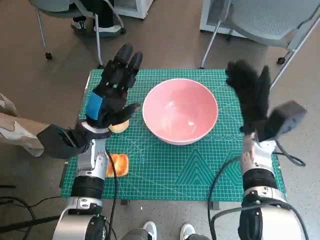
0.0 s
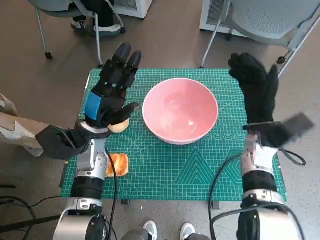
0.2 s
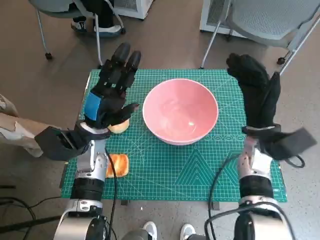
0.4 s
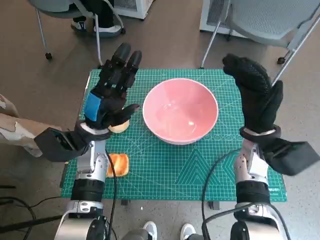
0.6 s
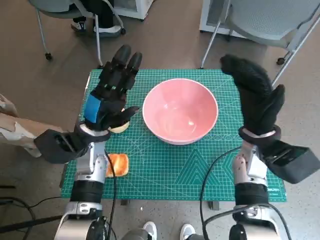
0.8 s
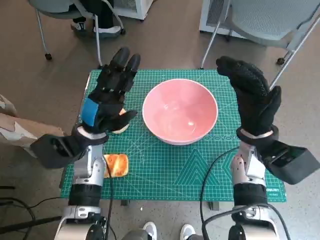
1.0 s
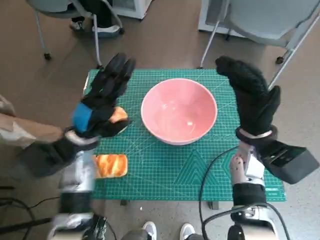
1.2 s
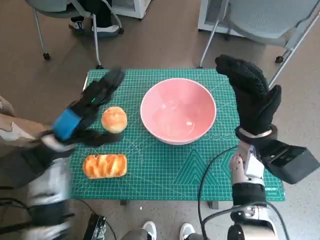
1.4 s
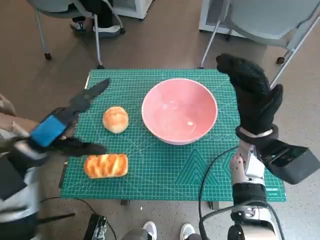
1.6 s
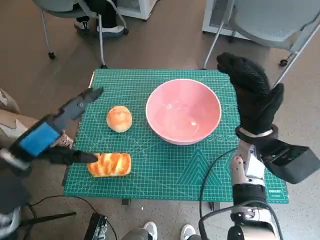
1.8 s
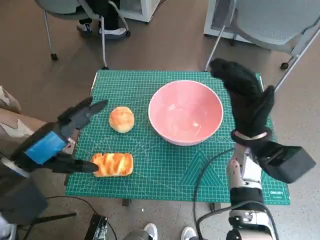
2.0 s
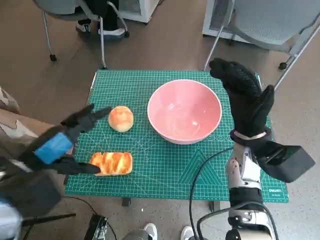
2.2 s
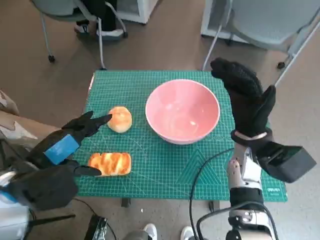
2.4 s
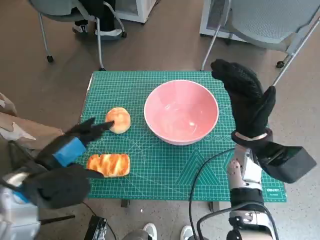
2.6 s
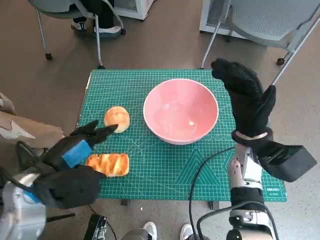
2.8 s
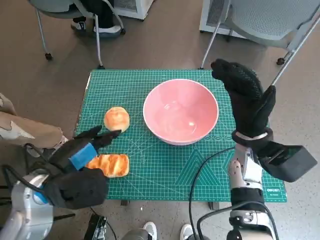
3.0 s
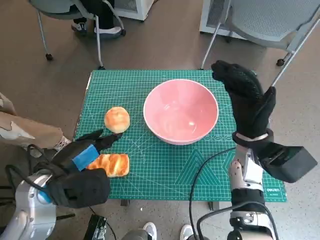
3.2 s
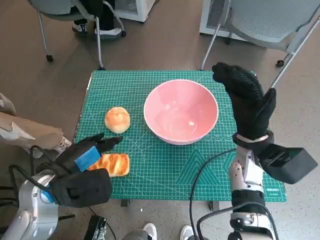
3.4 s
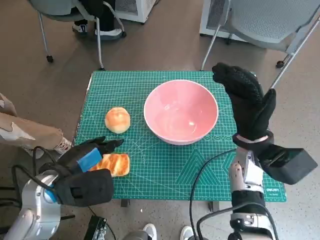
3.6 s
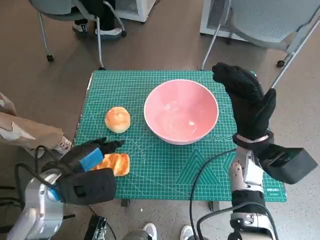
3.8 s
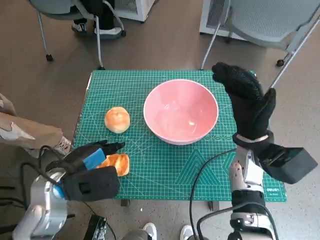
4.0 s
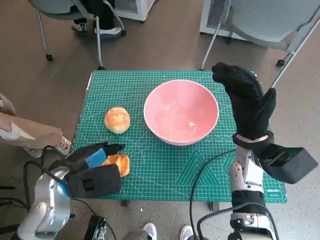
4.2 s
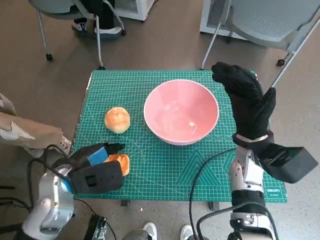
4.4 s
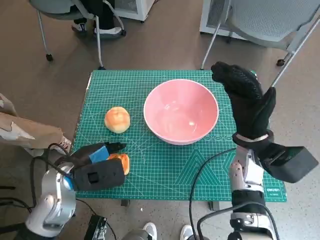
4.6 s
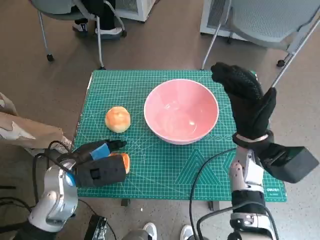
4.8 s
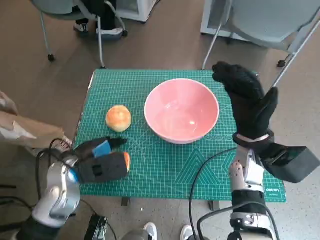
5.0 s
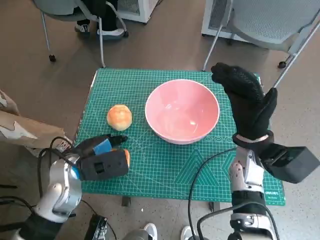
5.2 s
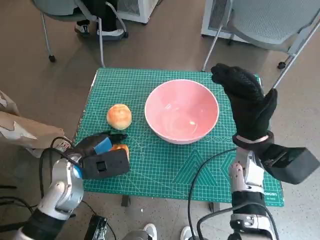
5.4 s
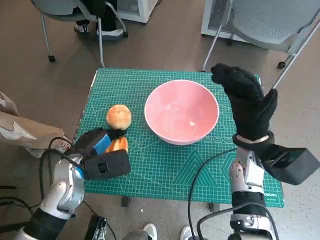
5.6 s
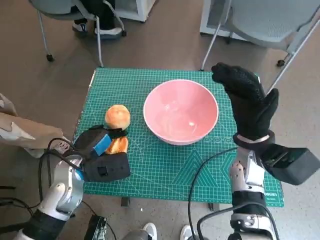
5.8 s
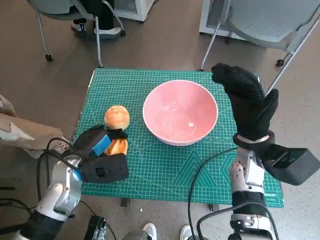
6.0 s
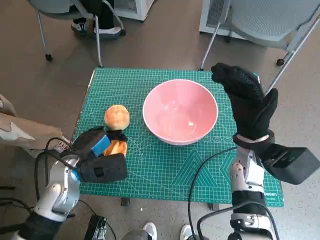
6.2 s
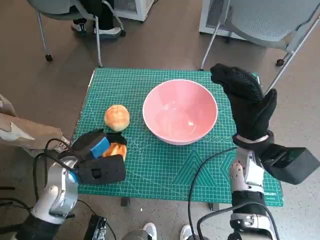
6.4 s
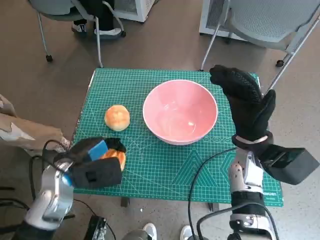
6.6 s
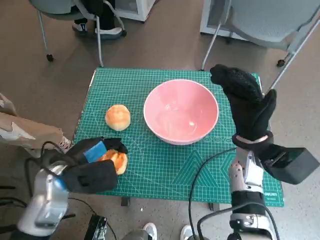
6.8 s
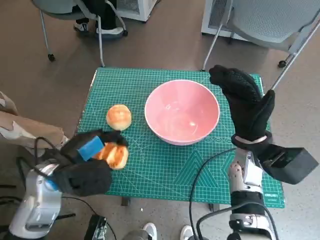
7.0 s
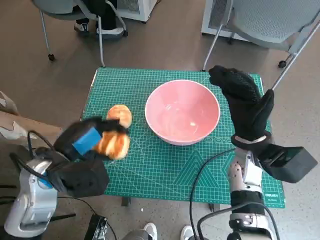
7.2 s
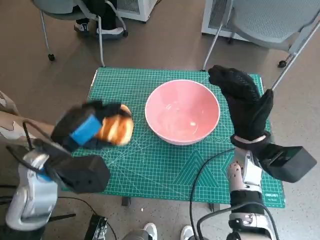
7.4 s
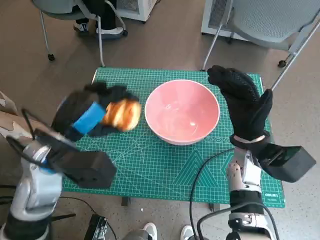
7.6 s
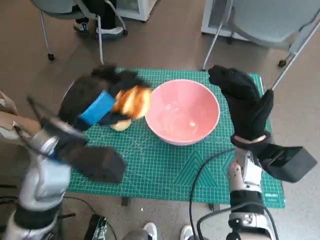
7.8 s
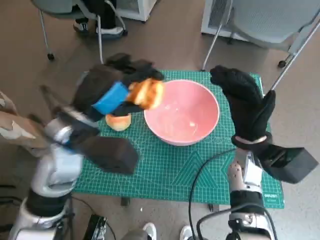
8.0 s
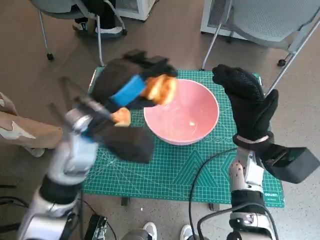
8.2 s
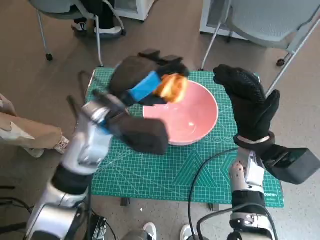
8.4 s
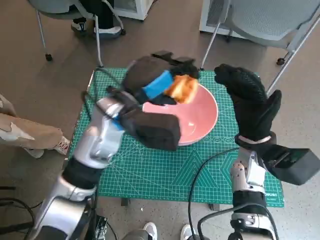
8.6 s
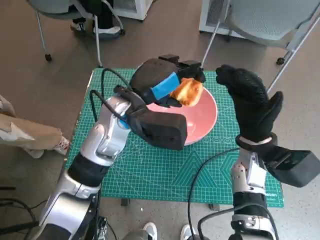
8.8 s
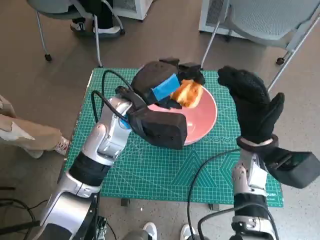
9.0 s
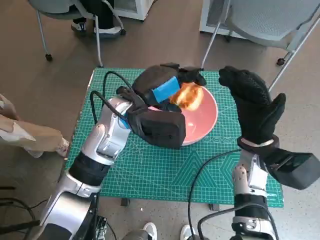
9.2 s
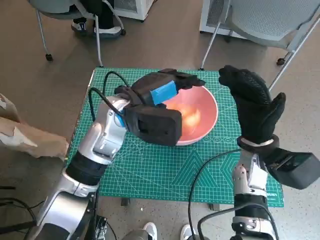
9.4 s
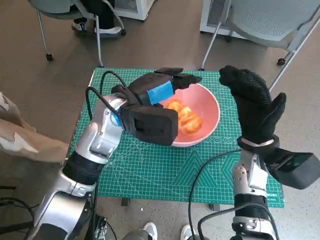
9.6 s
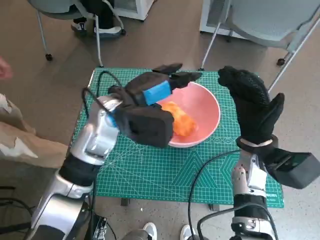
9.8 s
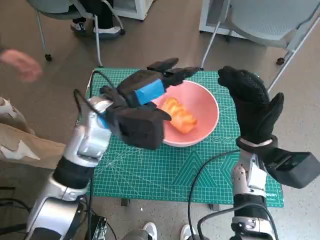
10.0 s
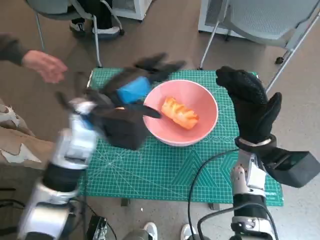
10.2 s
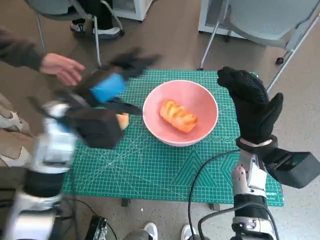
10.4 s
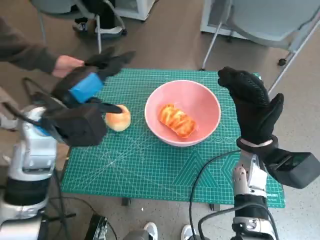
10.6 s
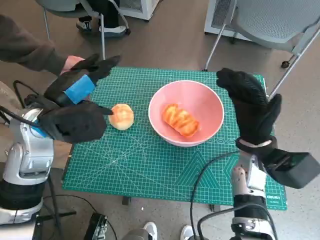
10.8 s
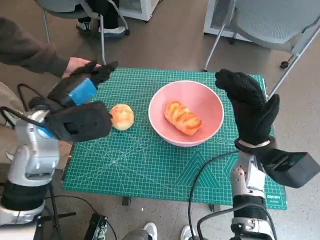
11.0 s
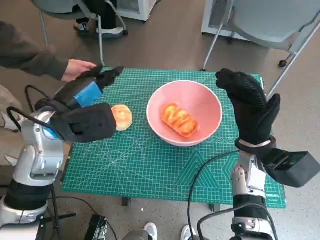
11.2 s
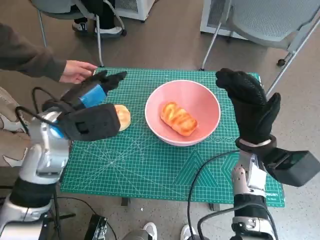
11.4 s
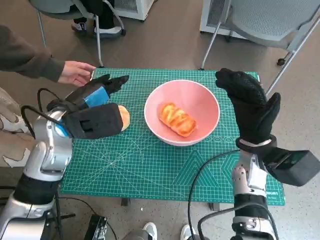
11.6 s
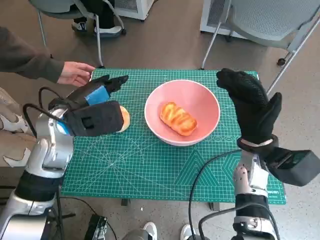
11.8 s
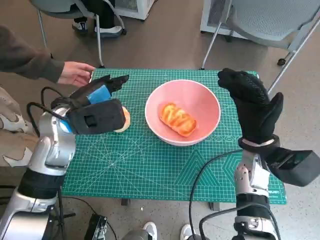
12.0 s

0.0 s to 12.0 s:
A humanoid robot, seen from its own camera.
Step, 0.0 to 5.6 s: Grasp the long bread with left hand.
Step, 5.8 to 9.6 s: Place the long bread in pink bowl with left hand.
0.0 to 1.6 s: The right hand ends up about 5 cm from where it was. The left hand moves to the left, backward and upward, about 10 cm.
1.6 to 3.0 s: The left hand changes place by some 5 cm.
3.0 to 4.4 s: The left hand shifts by approximately 5 cm.
4.4 to 6.0 s: There are only small adjustments of the hands.
6.0 to 7.6 s: The left hand moves upward, some 10 cm.
7.6 to 9.0 s: The left hand is displaced to the right and forward by roughly 15 cm.
9.0 to 10.4 s: The left hand travels to the left by about 10 cm.

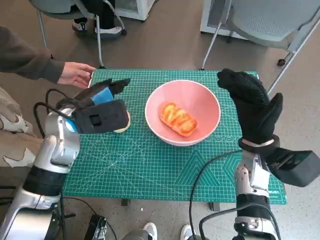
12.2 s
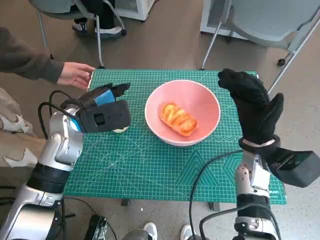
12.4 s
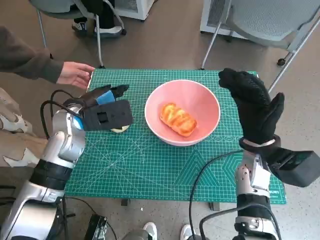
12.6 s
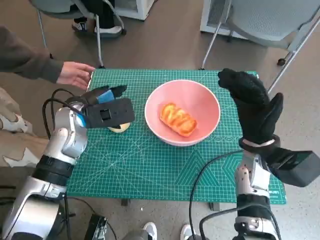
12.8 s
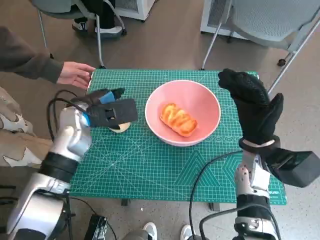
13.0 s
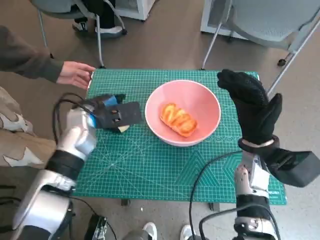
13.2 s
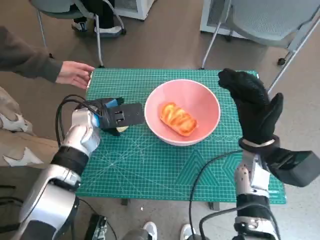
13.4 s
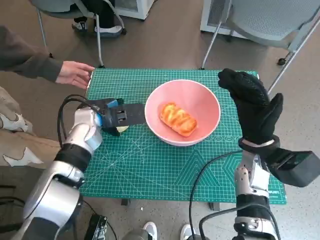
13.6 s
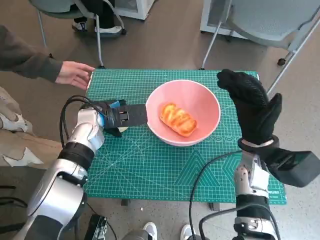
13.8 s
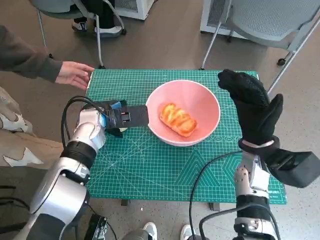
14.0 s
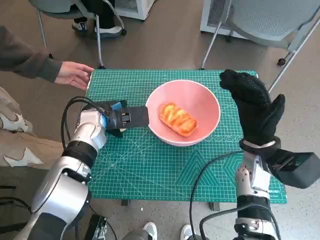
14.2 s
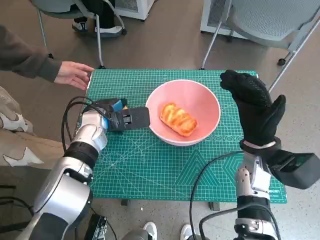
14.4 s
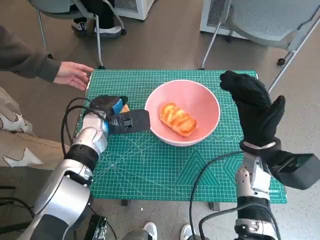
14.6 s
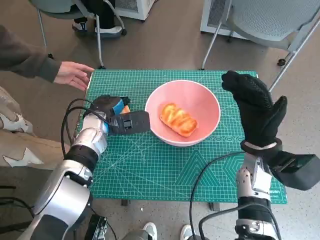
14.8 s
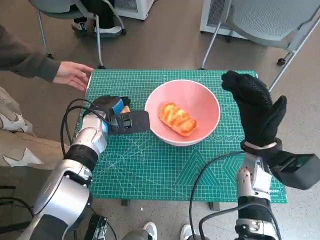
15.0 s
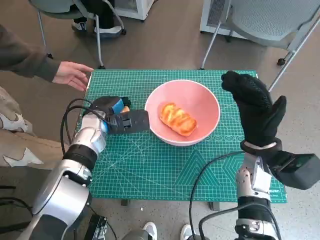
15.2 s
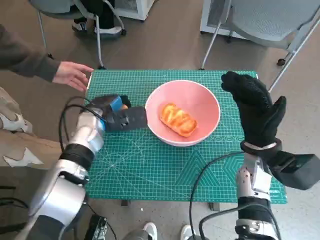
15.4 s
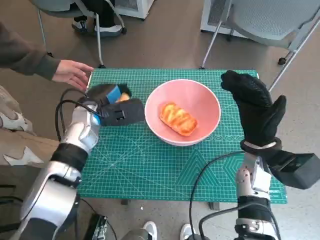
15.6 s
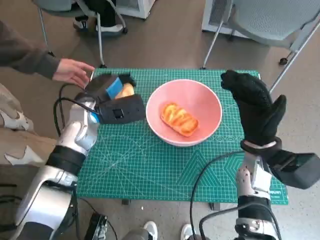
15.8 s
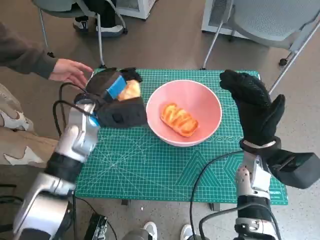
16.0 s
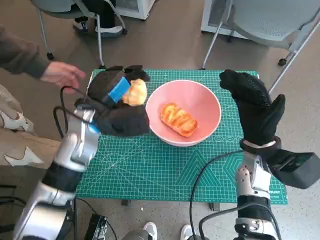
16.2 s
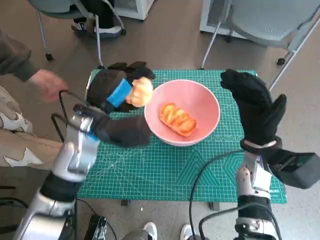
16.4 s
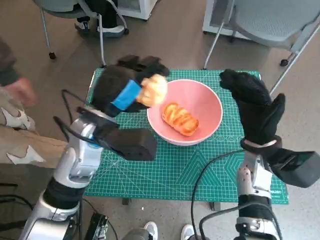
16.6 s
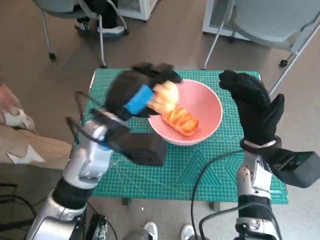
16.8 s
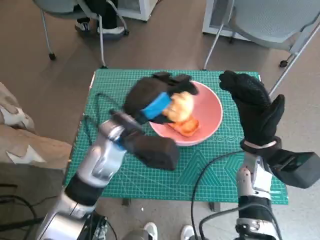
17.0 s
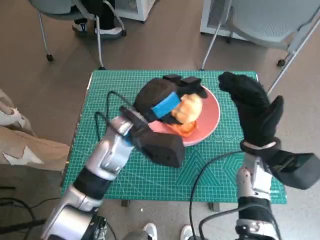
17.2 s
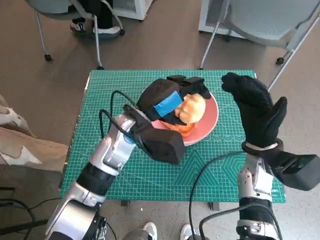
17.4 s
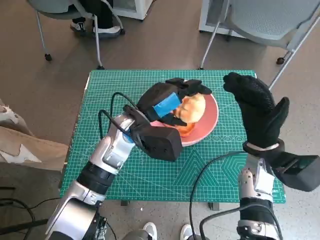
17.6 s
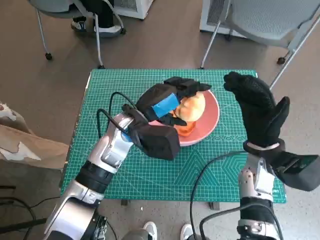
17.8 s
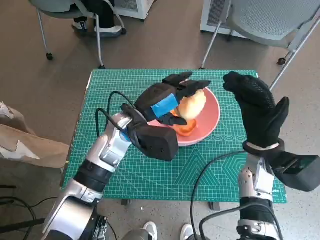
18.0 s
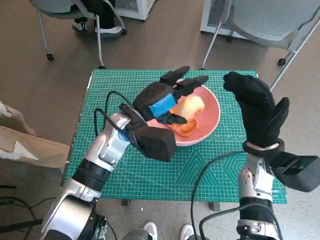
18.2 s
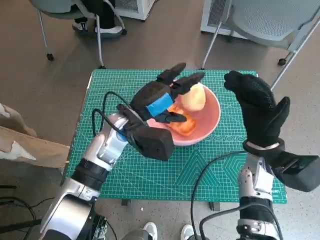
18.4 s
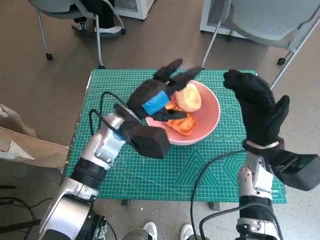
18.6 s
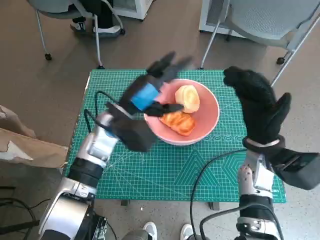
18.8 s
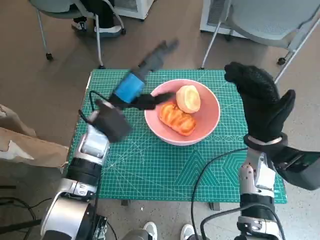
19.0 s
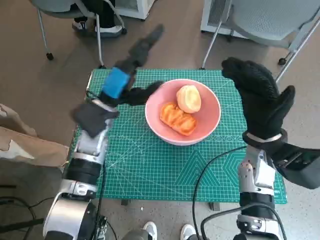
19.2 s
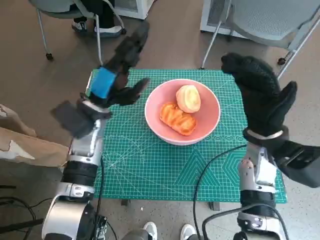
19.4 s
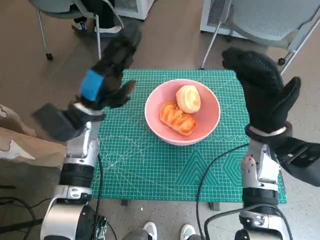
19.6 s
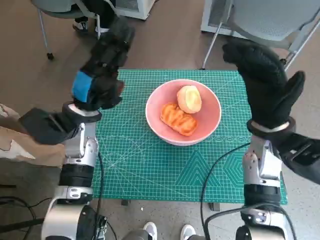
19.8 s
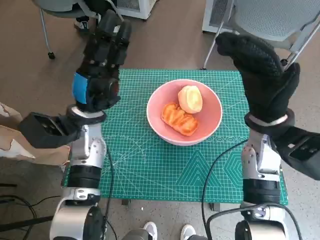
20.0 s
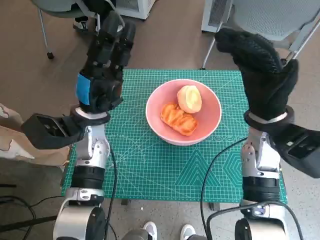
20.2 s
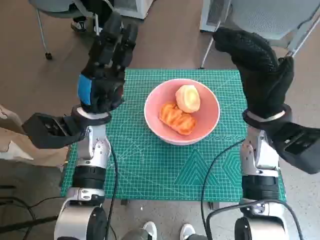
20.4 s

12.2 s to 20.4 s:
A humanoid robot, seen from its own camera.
Step, 12.2 to 14.6 s: Grasp the round bread with left hand.
Step, 14.8 to 18.4 s: Place the round bread in pink bowl with left hand.
12.2 to 13.8 s: The left hand heads downward, covering roughly 5 cm.
13.8 to 15.4 s: The hands make only small movements.
15.4 to 17.2 s: The left hand is displaced to the right, upward and backward by about 10 cm.
18.8 to 20.4 s: The right hand moves upward, approximately 5 cm, while the left hand travels to the left by approximately 5 cm.
